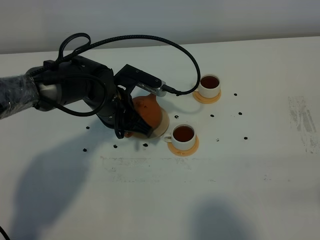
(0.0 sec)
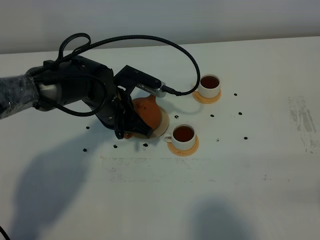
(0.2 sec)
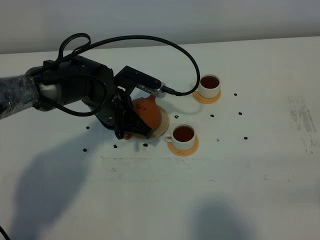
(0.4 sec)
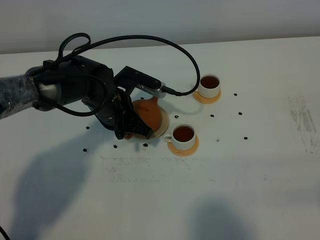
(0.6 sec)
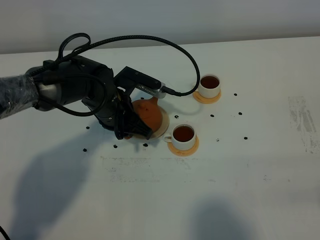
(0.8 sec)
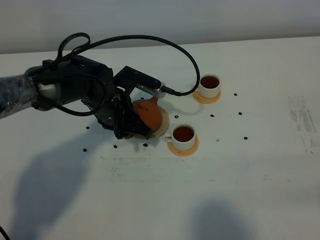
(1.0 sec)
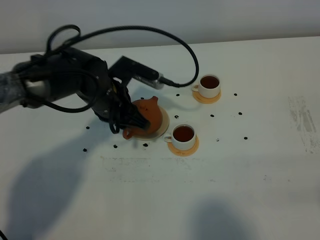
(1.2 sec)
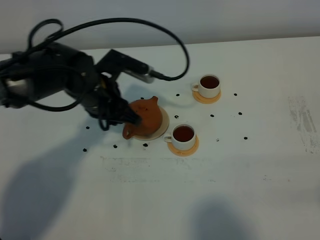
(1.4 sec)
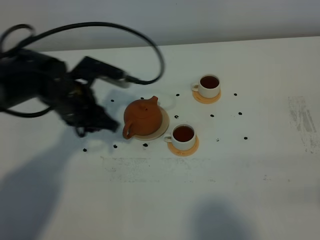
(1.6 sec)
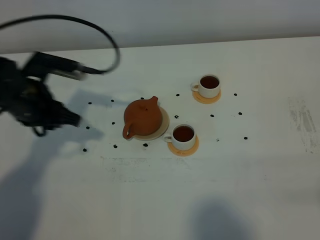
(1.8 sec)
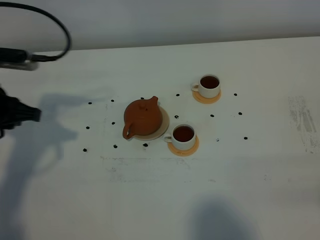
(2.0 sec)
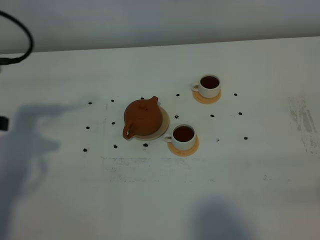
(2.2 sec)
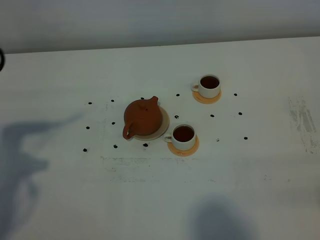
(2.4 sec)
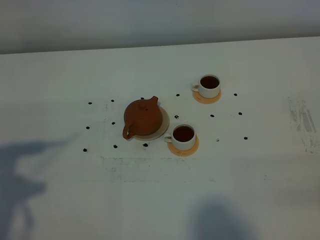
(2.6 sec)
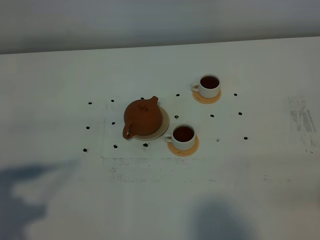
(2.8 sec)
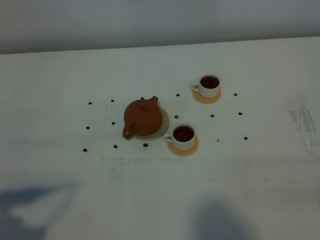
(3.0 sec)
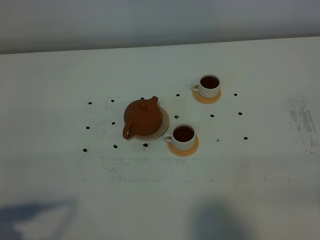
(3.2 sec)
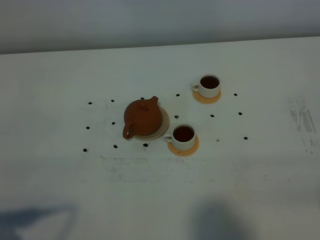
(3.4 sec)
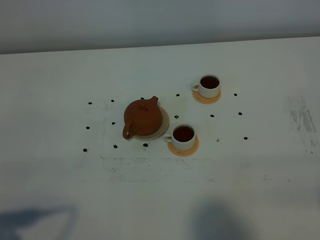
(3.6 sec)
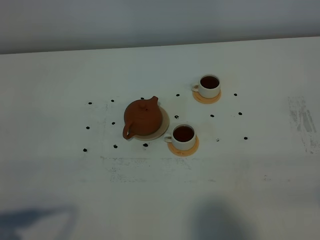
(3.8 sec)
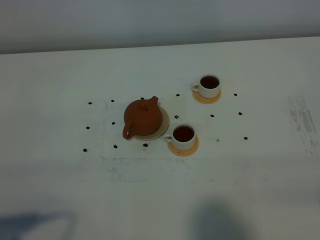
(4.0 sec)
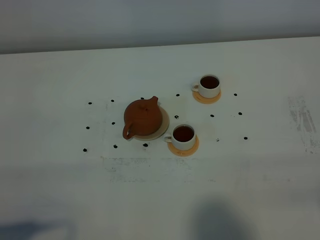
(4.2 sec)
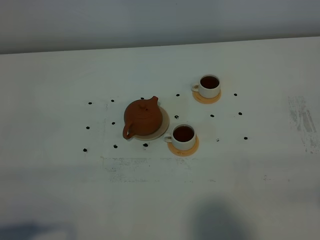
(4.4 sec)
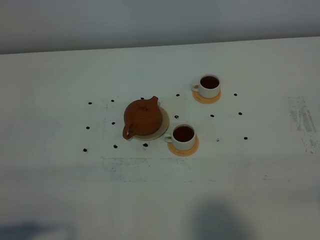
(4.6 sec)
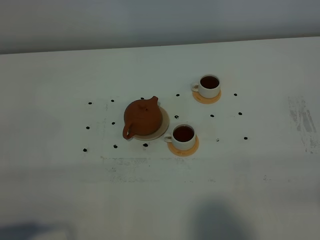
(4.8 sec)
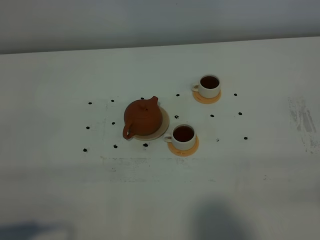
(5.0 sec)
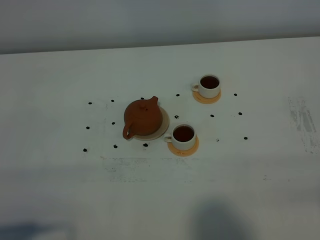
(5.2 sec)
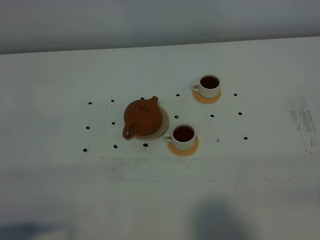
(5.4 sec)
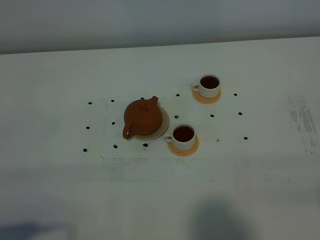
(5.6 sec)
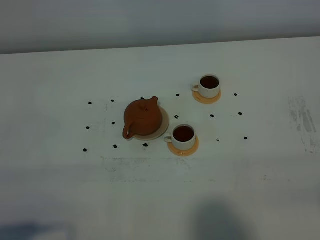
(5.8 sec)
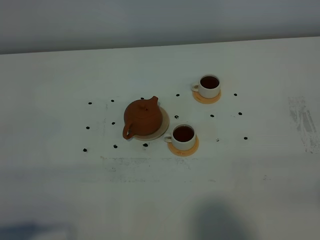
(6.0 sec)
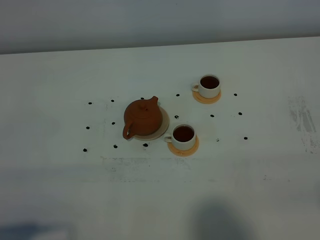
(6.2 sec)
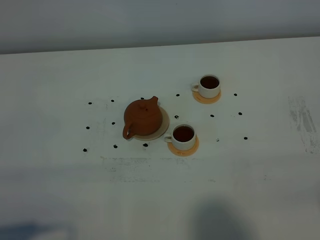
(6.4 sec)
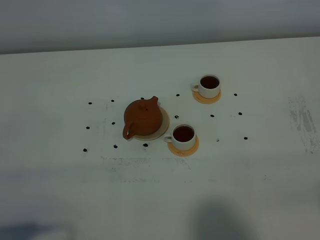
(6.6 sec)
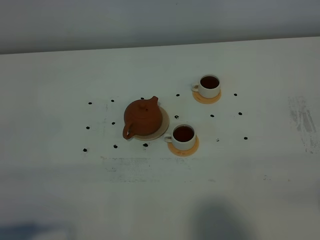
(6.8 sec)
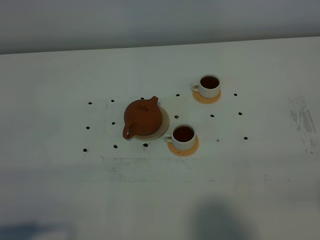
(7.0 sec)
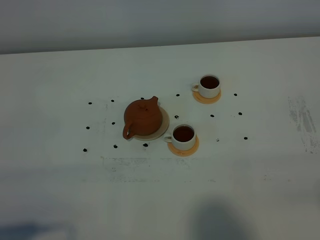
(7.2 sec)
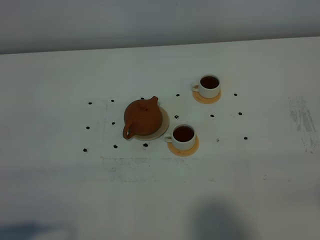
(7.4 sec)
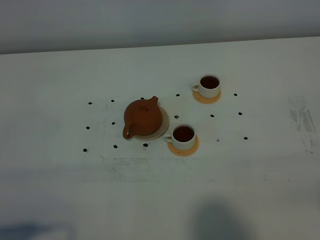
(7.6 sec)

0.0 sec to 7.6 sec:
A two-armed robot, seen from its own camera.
Task of the whole recording: grasp the brown teapot and pour the tea into the two white teacups one by one, put the brown teapot back in its original place.
0.0 sec to 1.6 sec: The left gripper travels to the left by about 5 cm, and opens up.
1.6 sec to 3.0 sec: The left gripper travels backward and to the left by roughly 30 cm.
3.0 sec to 4.6 sec: The grippers make only small movements.
4.6 sec to 6.0 sec: Neither gripper changes place.
6.0 sec to 7.6 sec: Neither gripper changes place.
